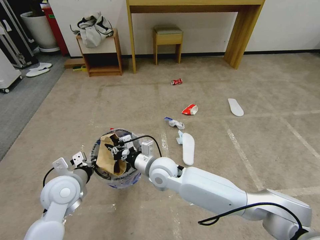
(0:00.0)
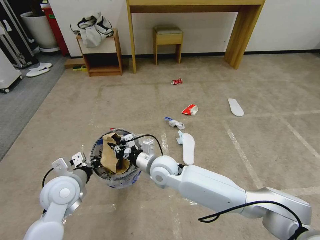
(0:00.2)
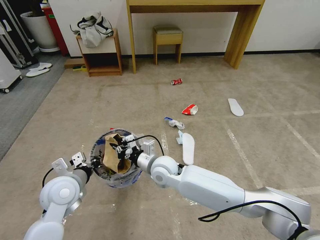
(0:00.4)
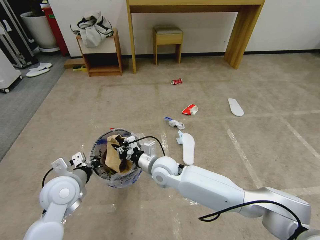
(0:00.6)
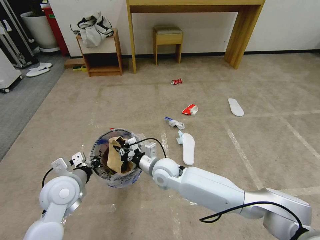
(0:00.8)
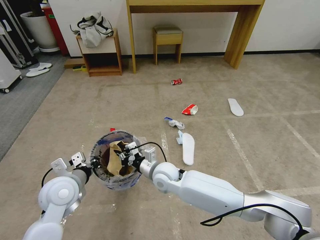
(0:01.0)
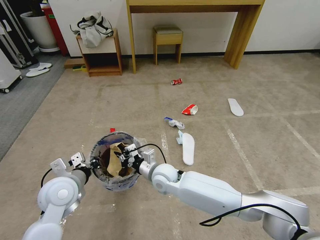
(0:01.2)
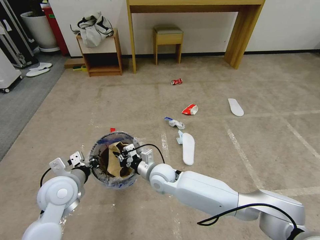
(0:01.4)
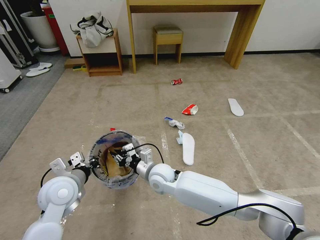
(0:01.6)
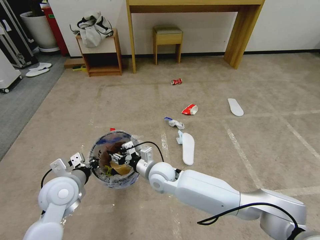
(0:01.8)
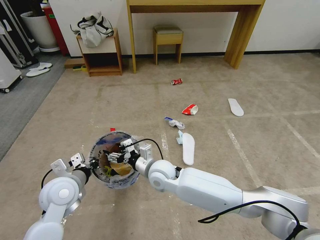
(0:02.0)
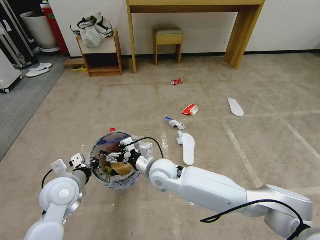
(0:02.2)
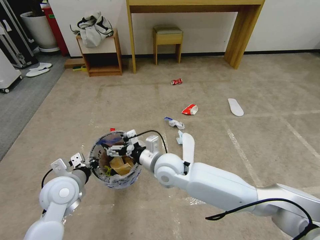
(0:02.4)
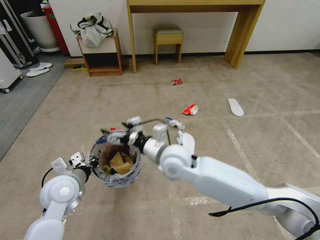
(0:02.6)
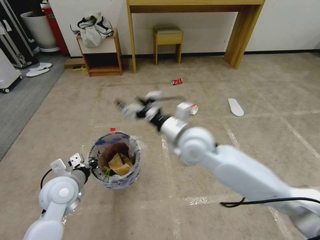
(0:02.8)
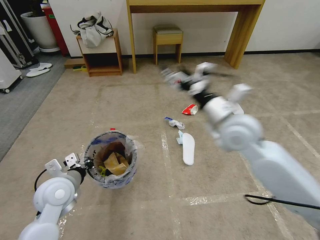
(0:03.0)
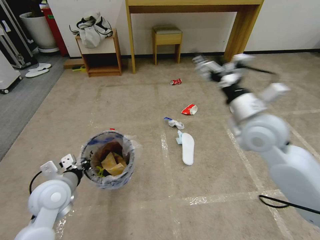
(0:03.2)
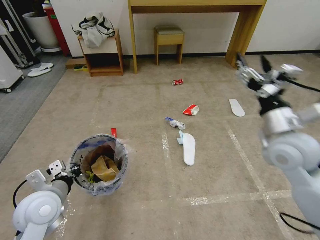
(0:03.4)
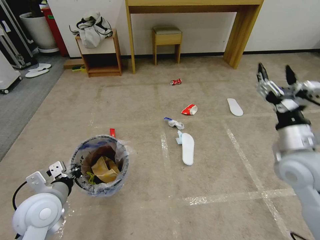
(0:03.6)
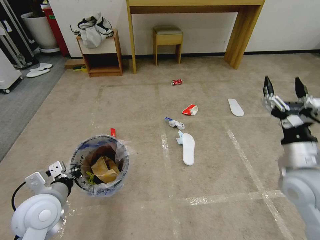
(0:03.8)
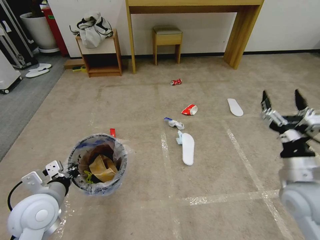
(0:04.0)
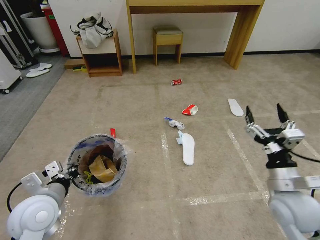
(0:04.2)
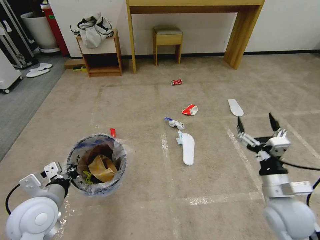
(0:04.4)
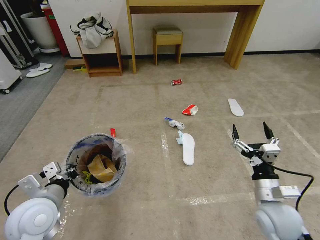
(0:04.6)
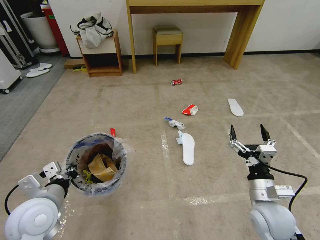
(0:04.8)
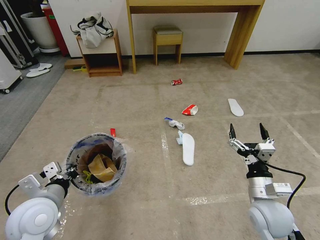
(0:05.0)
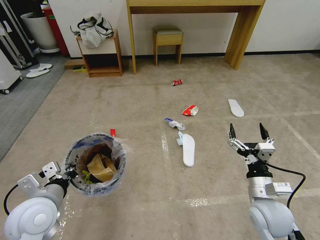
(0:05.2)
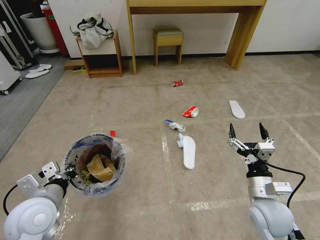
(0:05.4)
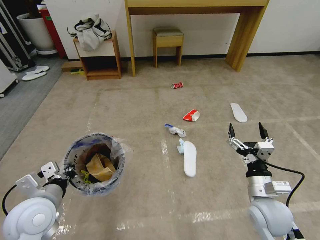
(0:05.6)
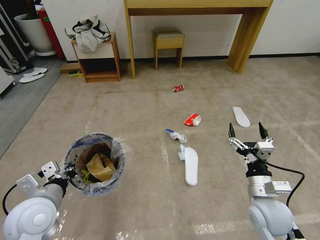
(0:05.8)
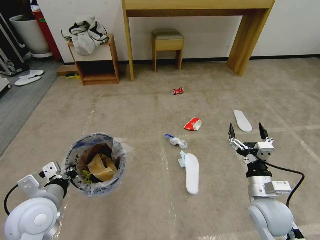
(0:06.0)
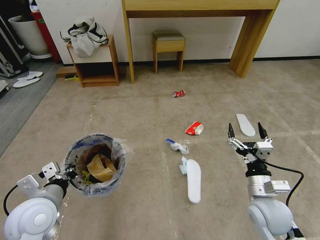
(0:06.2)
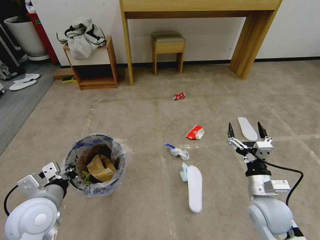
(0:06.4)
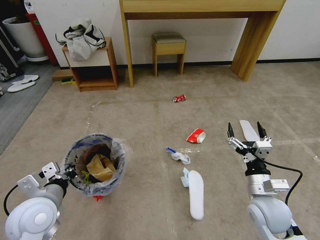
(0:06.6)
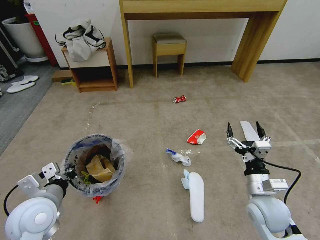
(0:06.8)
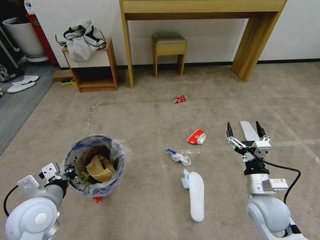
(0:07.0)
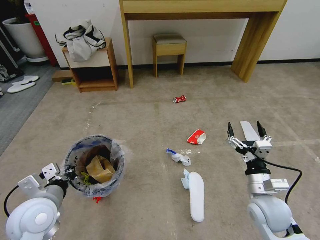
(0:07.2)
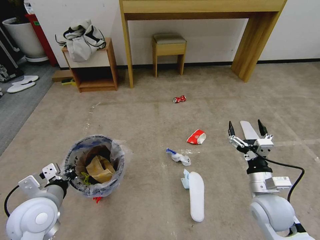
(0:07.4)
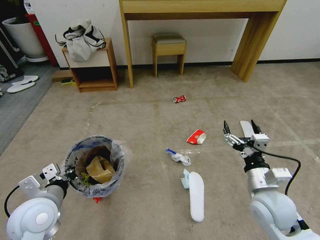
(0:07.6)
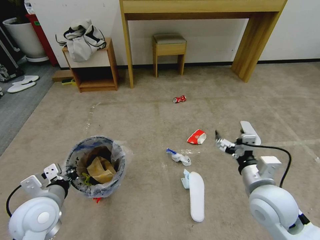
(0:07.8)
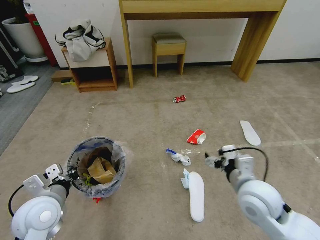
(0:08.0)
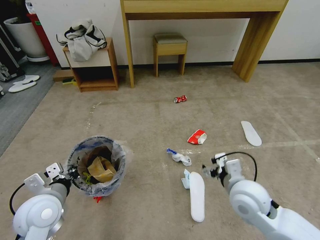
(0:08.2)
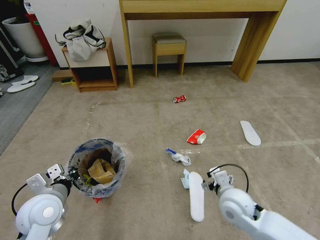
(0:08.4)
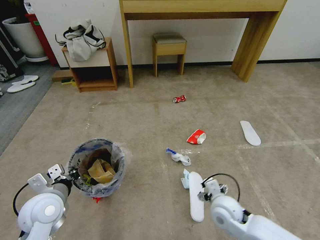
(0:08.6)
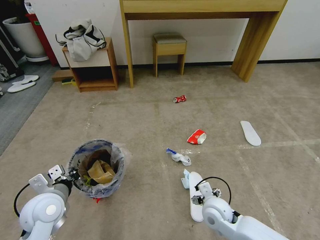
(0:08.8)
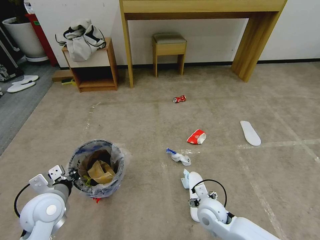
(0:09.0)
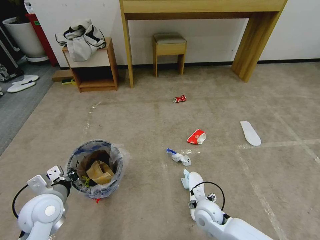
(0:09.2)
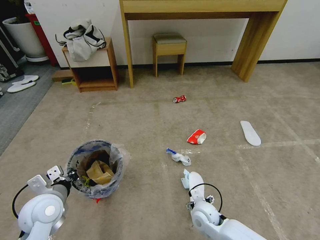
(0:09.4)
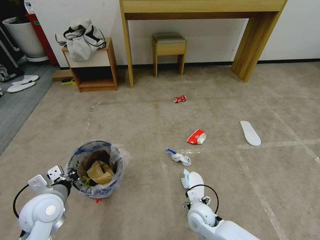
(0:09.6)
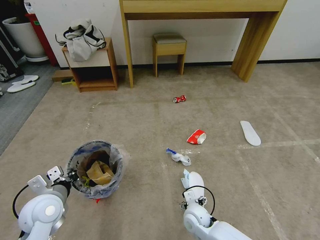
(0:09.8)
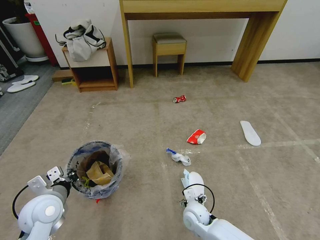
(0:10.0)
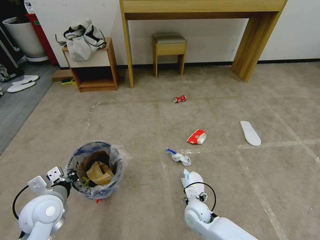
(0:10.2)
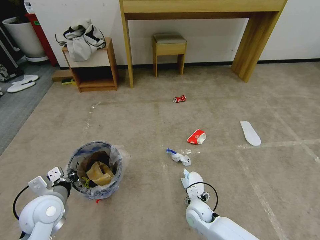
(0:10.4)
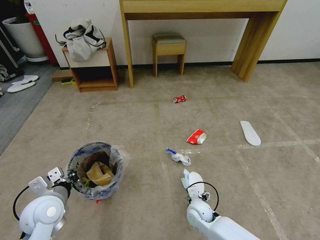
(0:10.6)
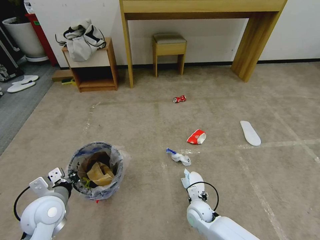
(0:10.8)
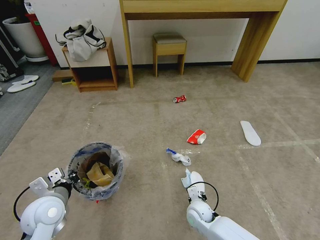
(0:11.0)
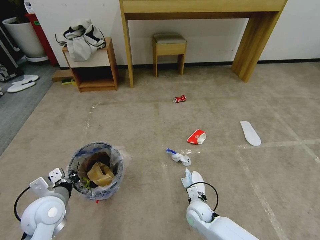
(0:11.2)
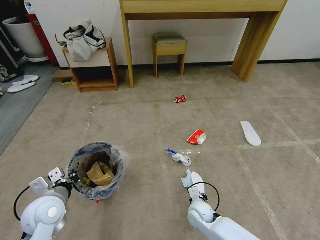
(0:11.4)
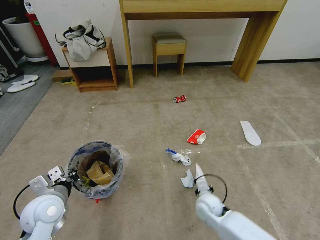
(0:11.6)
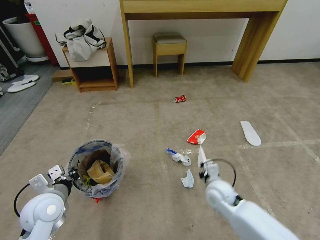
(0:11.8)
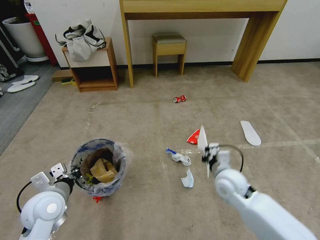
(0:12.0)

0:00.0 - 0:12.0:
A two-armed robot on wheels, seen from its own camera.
Task of the whole recording: Pick up the trash bin and place the garbage on the floor into it.
0:00.0 - 0:01.6: The right gripper shifts about 5 cm downward.
0:01.6 - 0:03.0: The right gripper is displaced upward and to the right by approximately 30 cm, and opens up.
0:03.0 - 0:04.4: The right gripper heads backward, downward and to the right, covering some 25 cm. Meanwhile the left gripper is displaced backward by approximately 5 cm.
0:07.6 - 0:09.0: The right gripper is displaced downward and to the left by roughly 20 cm.
0:09.0 - 0:10.4: The right gripper travels downward by approximately 10 cm.
0:10.4 - 0:12.0: The right gripper goes approximately 20 cm upward and to the right, and closes its fingers.

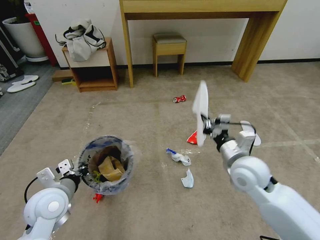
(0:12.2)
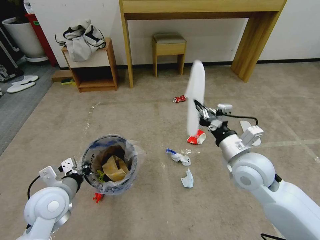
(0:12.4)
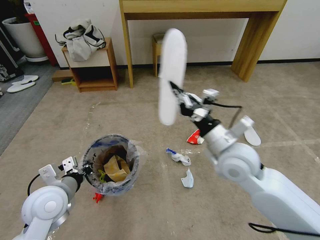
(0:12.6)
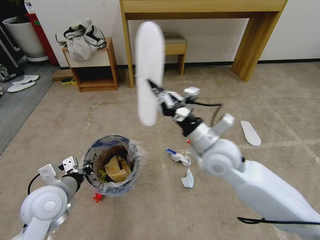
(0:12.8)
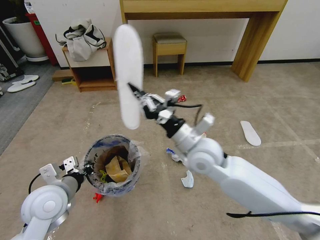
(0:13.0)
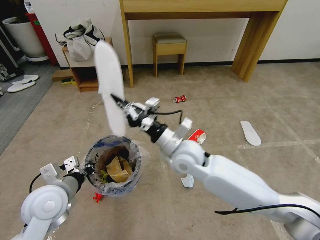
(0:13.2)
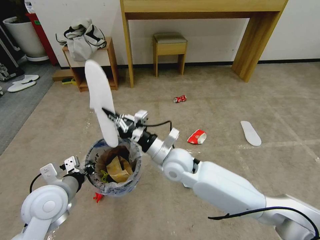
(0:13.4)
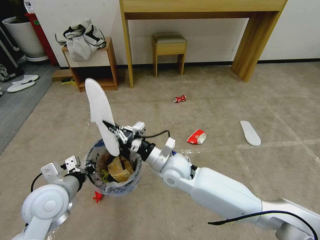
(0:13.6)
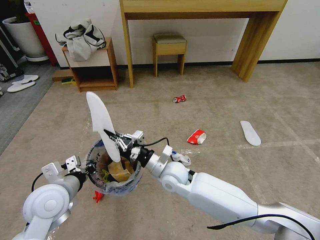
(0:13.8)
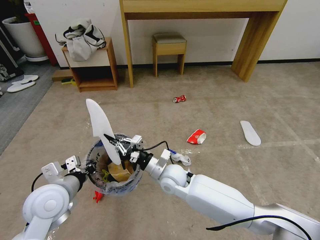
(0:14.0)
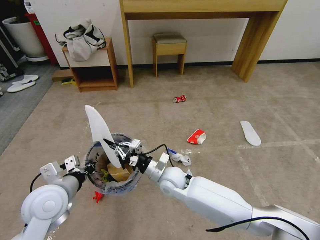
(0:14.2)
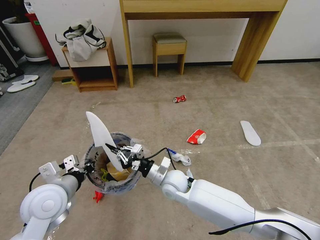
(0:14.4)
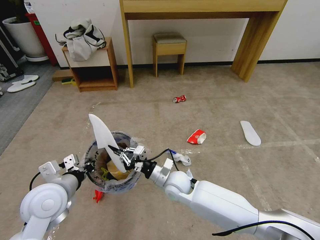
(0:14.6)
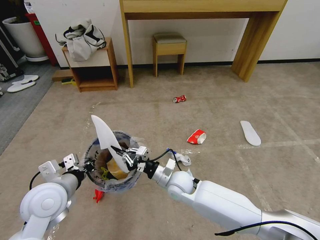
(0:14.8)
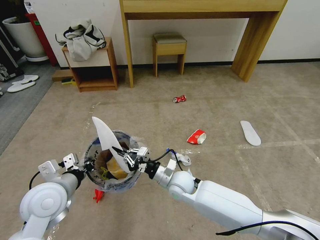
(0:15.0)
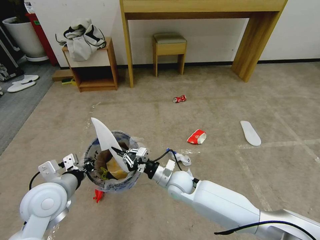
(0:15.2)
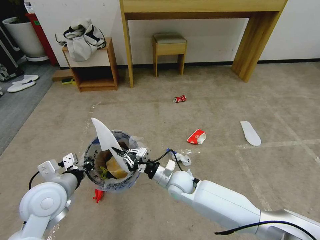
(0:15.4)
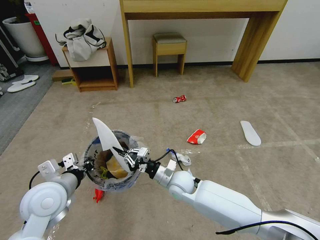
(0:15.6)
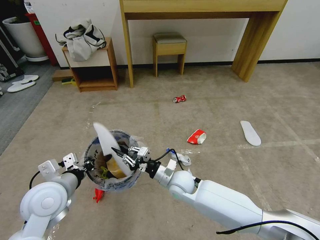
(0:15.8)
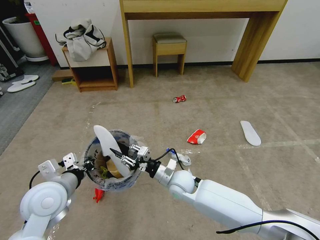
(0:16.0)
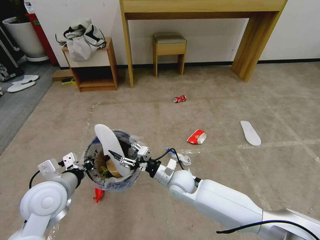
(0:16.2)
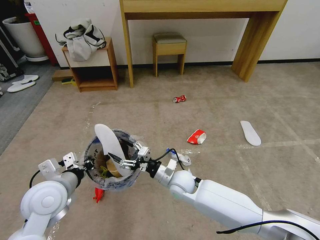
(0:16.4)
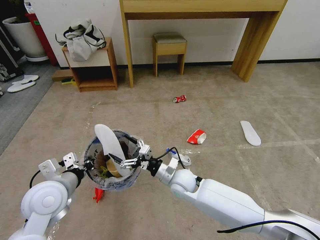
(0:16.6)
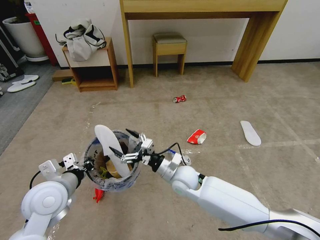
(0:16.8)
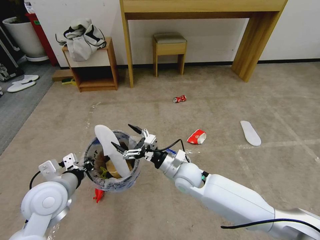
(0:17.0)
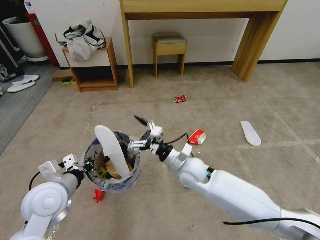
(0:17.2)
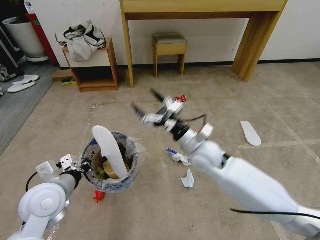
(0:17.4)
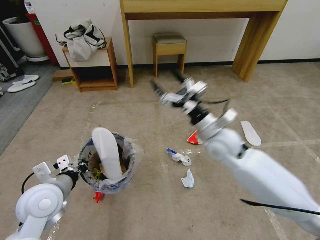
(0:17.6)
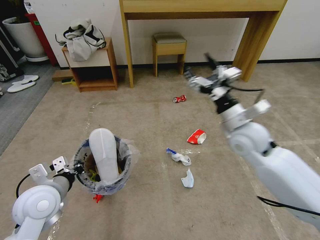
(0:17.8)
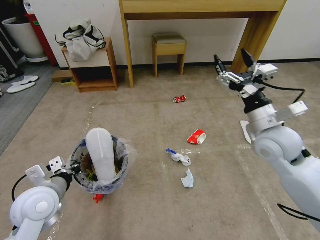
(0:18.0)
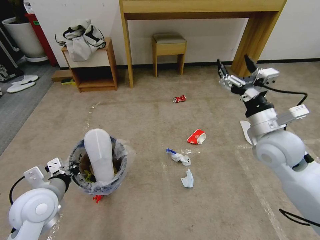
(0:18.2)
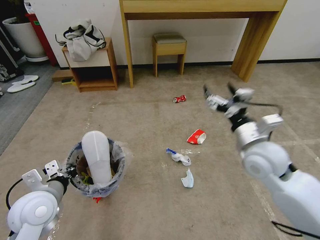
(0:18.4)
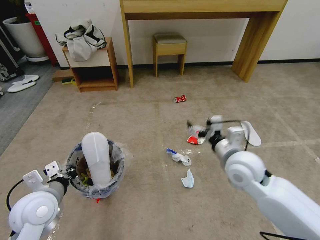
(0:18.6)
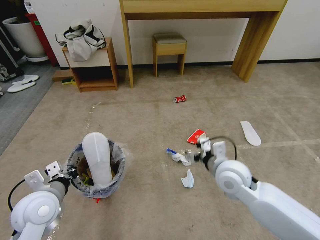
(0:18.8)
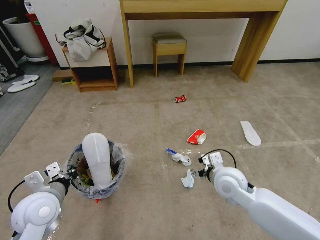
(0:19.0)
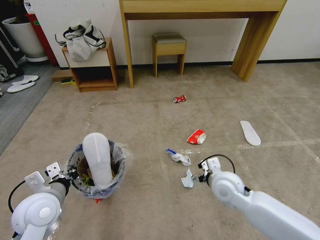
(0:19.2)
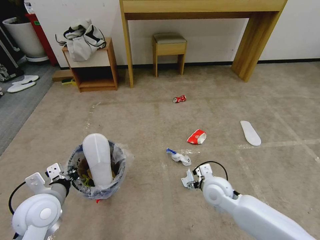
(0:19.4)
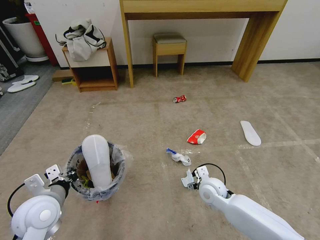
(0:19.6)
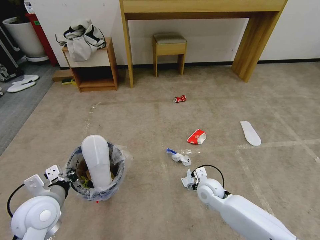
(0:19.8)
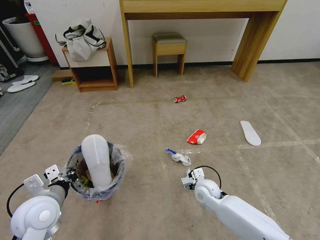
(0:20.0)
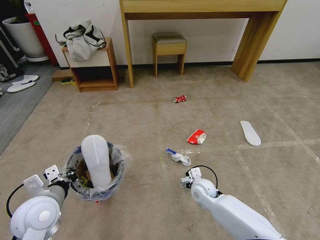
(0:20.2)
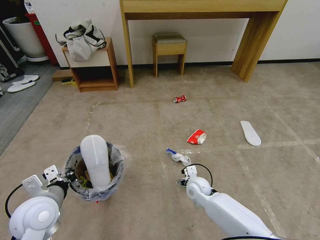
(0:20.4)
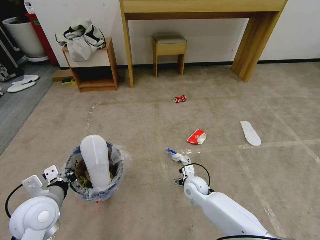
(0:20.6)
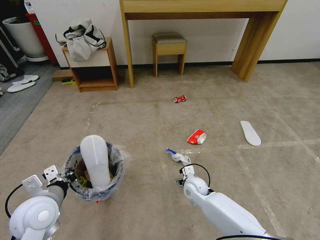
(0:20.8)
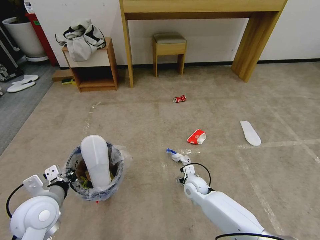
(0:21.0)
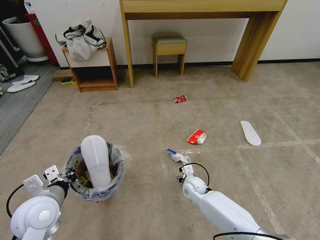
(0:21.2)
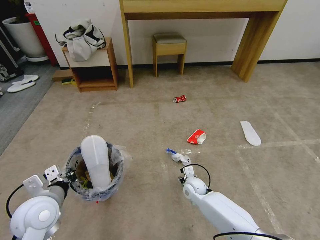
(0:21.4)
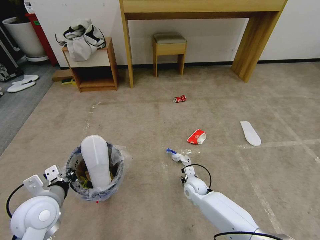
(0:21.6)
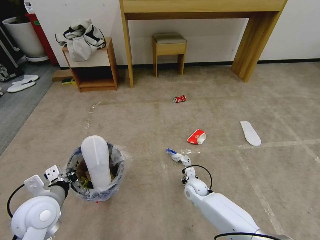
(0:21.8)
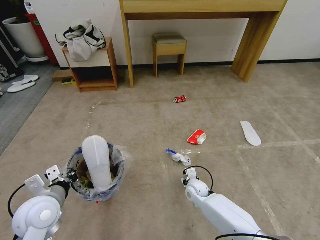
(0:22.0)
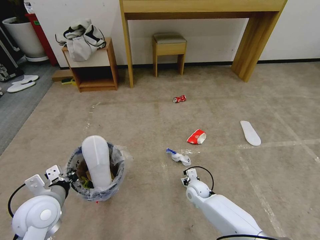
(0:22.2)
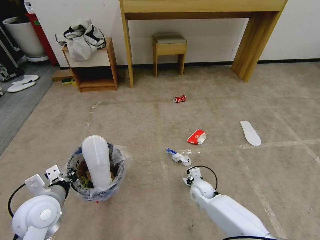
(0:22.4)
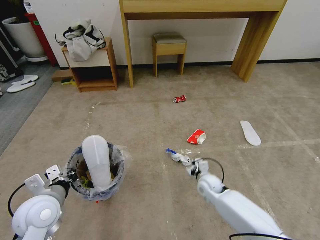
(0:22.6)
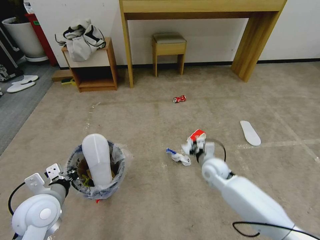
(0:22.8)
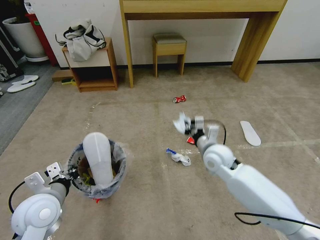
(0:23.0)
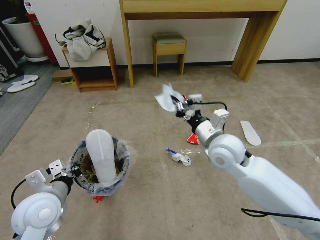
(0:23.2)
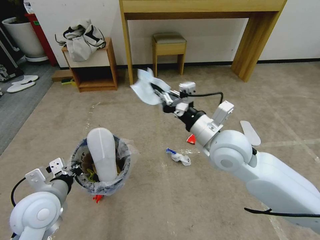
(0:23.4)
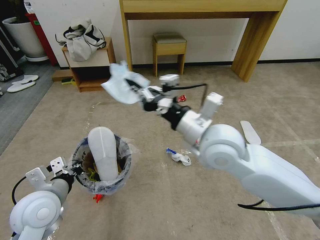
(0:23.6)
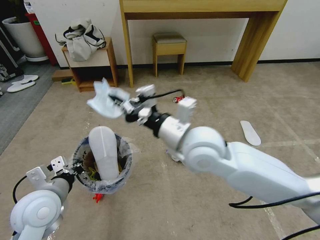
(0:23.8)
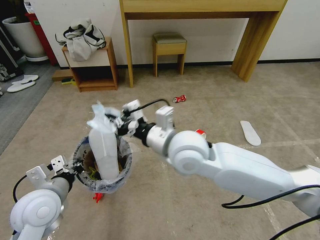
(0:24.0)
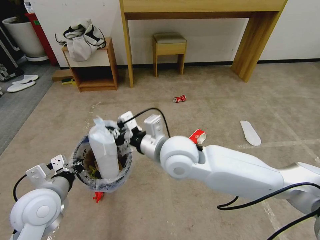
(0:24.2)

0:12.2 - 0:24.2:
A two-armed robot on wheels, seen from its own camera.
Task of the whole recording: Pick up the trash bin and place the garbage on the floor into it.
0:12.2 - 0:13.8: The right gripper travels to the left by roughly 20 cm.
0:13.8 - 0:15.2: The right gripper travels downward by approximately 5 cm.
0:15.2 - 0:16.6: The right gripper opens up.
0:16.6 - 0:18.2: The right gripper moves upward and to the right, about 30 cm.
0:18.2 - 0:19.8: The right gripper goes about 25 cm downward.
0:19.8 - 0:21.2: The right gripper shifts about 5 cm downward.
0:21.2 - 0:22.6: The right gripper is displaced to the right by about 5 cm, and closes up.
0:22.6 - 0:24.2: The right gripper shifts some 35 cm upward and to the left.
